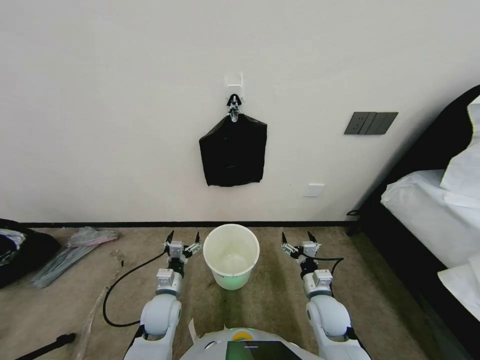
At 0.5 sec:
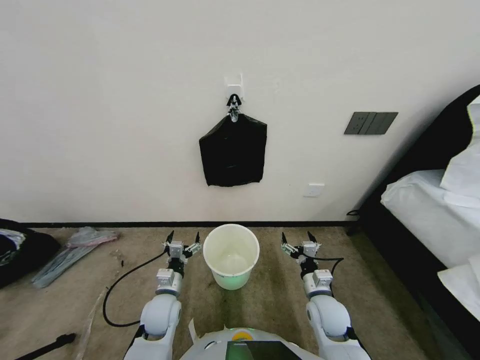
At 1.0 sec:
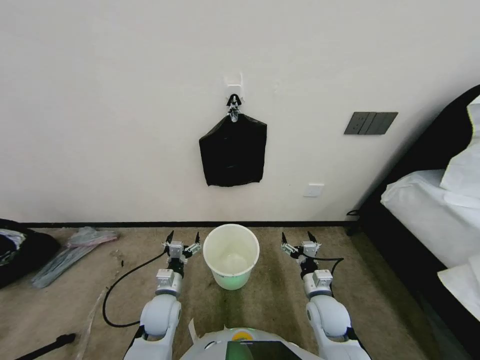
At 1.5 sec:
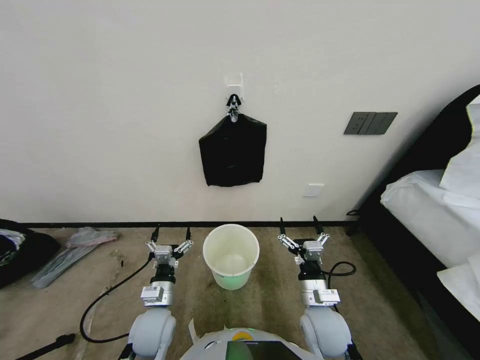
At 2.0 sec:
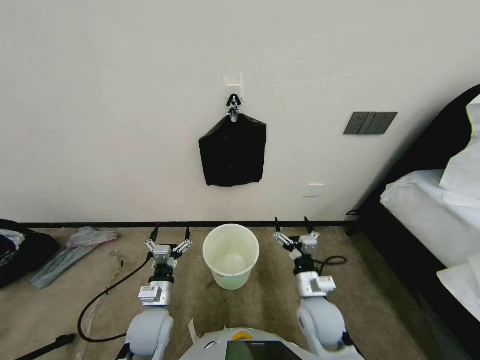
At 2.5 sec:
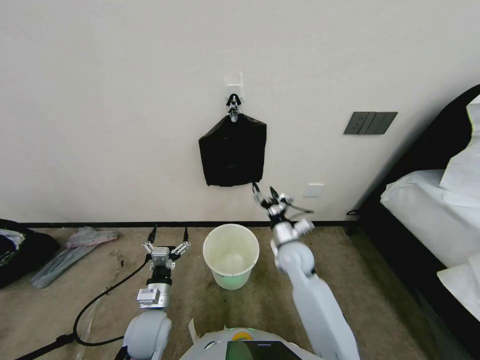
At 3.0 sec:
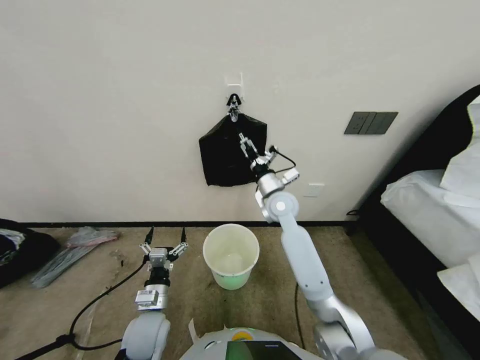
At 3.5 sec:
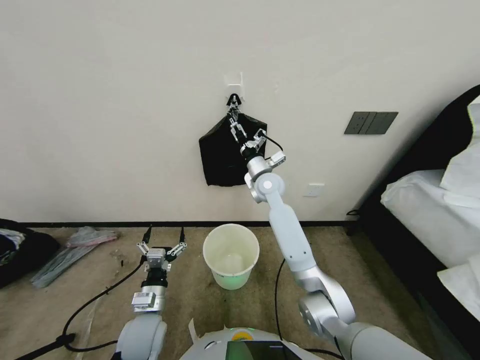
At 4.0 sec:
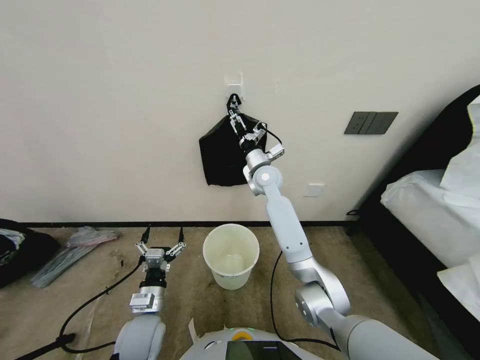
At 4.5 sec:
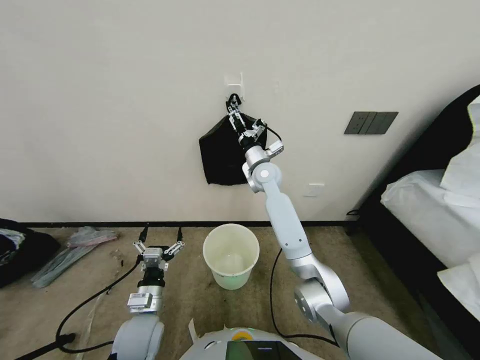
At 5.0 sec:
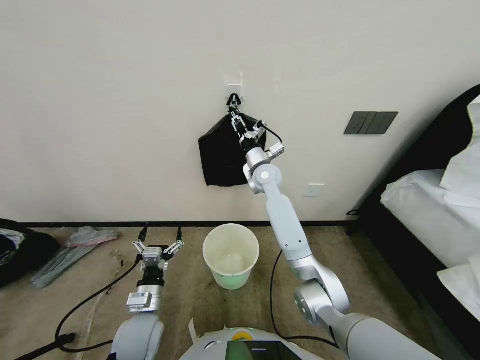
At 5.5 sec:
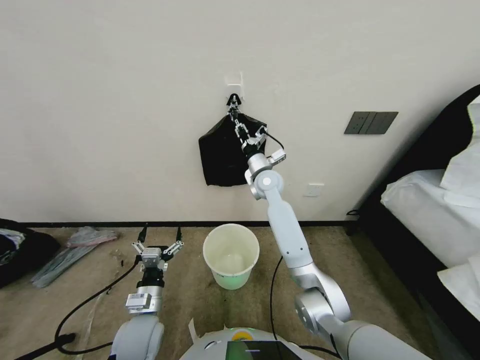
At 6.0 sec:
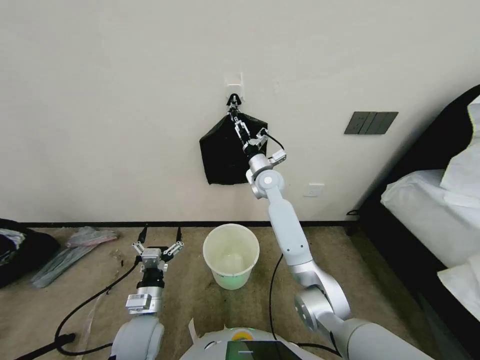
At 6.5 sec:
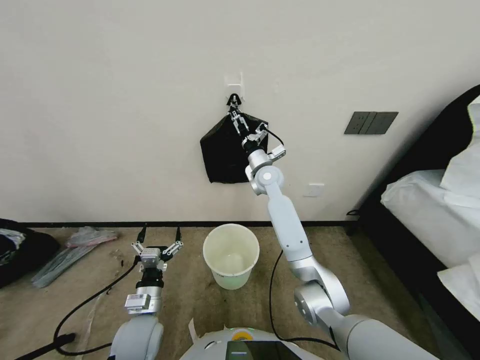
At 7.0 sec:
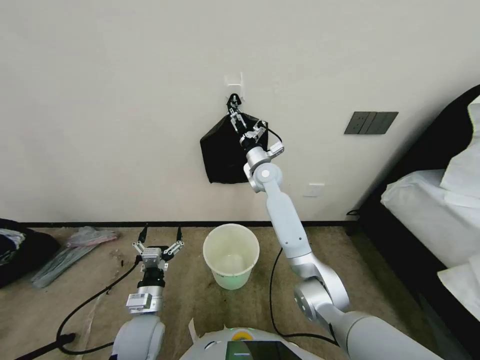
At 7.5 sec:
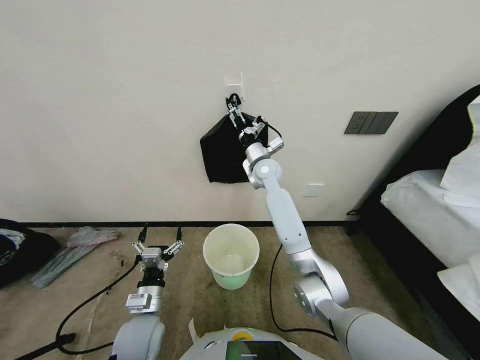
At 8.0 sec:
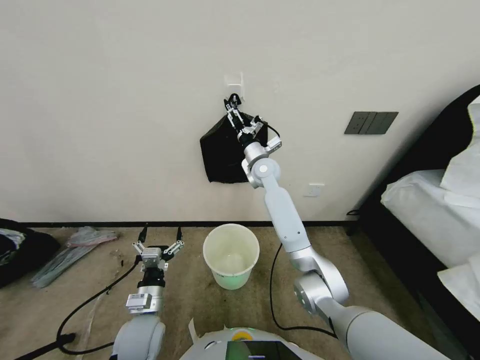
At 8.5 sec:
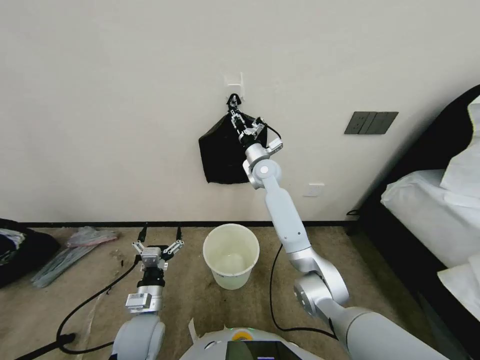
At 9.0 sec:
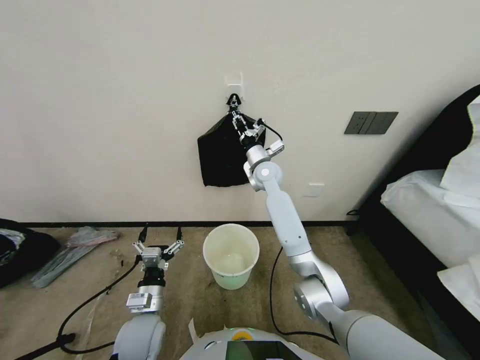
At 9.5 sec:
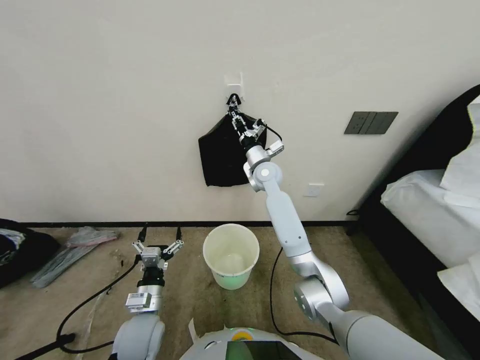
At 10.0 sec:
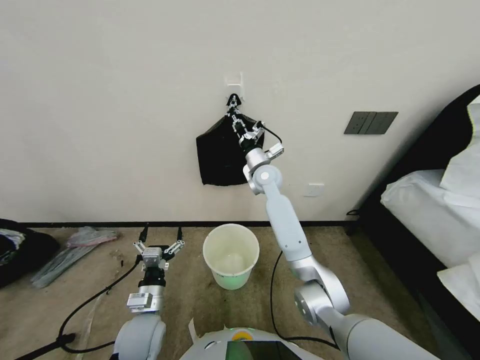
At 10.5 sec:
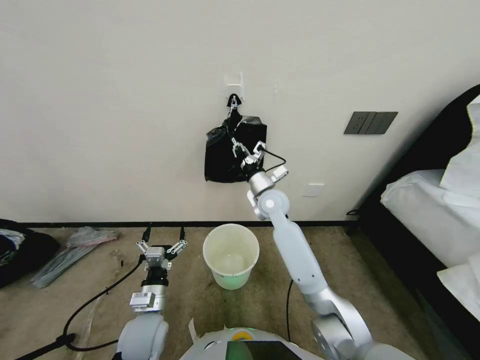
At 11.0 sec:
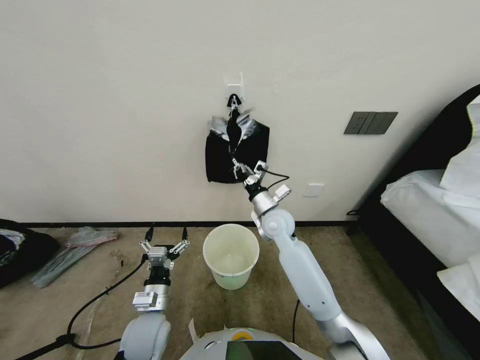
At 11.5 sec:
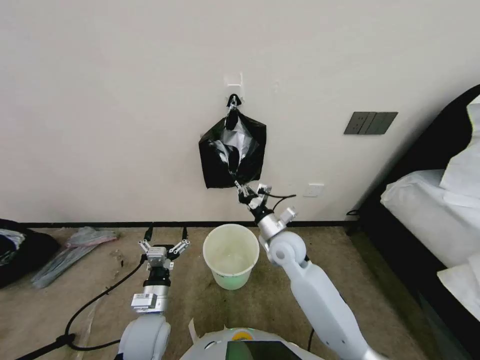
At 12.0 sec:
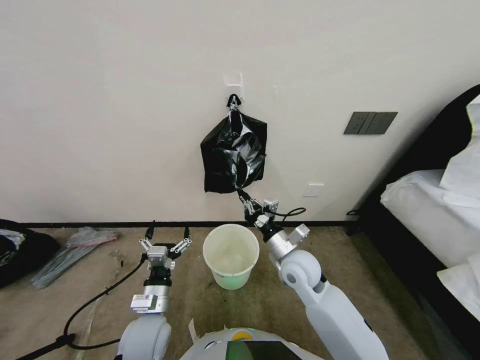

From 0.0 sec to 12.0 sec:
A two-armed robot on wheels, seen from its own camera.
Task of the whole recording: Place a trash bag onto the trash bin.
From 2.0 sec to 4.0 sec: The right gripper goes some 40 cm forward and upward.
From 4.0 sec to 6.0 sec: The right gripper closes, then reopens.
From 6.0 sec to 8.0 sec: The grippers make only small movements.
From 8.0 sec to 10.0 sec: The right gripper closes up.
From 10.0 sec to 12.0 sec: The right gripper moves backward and downward, roughly 25 cm.

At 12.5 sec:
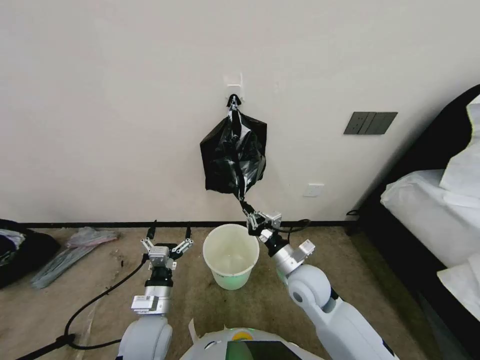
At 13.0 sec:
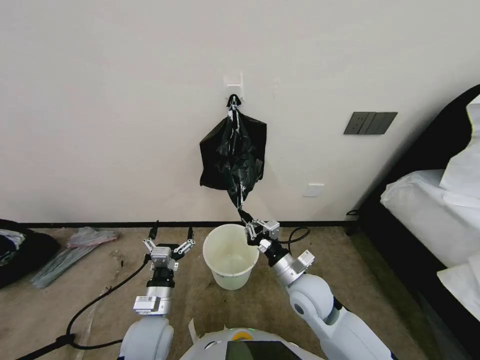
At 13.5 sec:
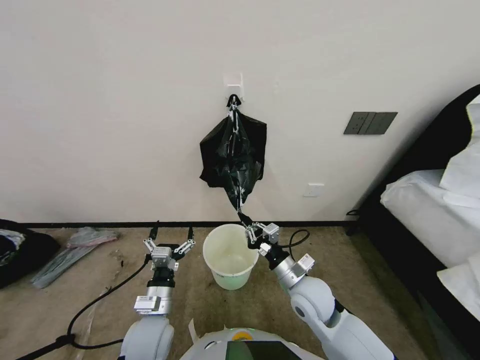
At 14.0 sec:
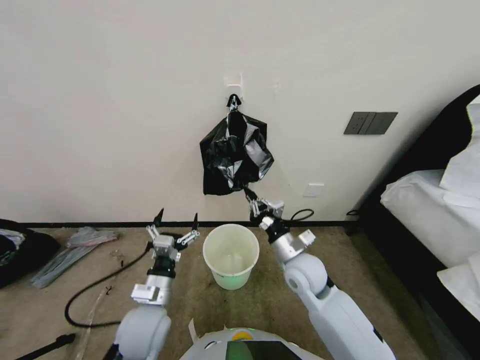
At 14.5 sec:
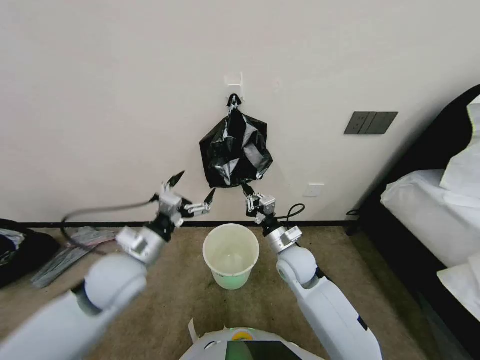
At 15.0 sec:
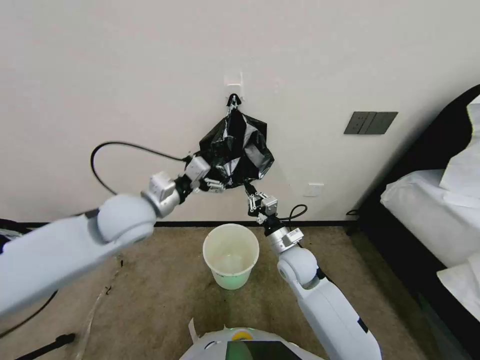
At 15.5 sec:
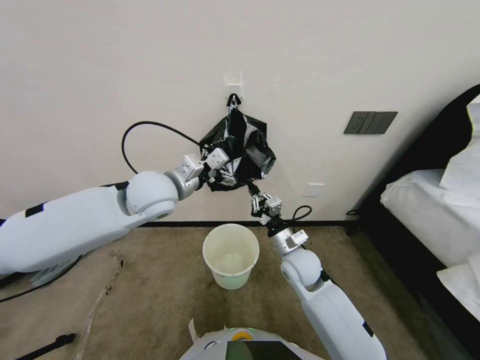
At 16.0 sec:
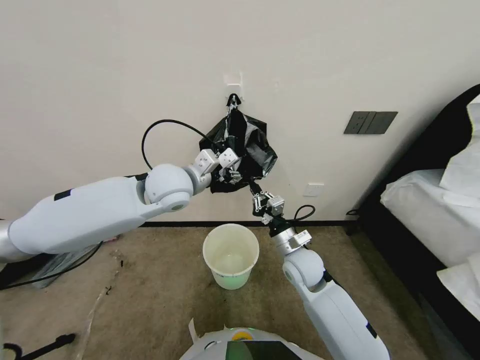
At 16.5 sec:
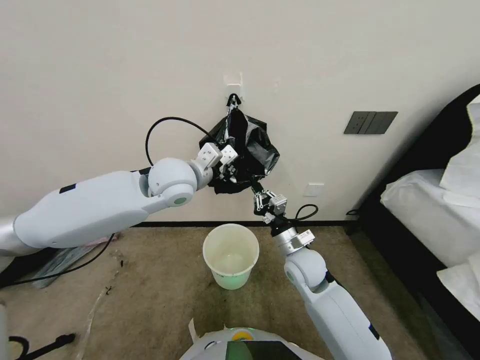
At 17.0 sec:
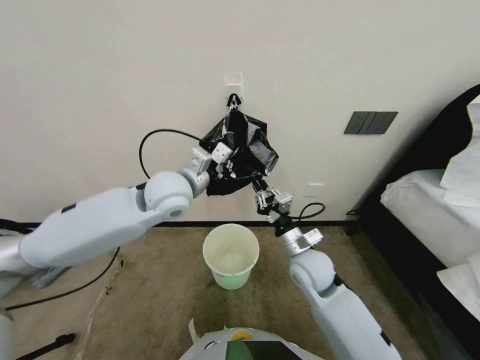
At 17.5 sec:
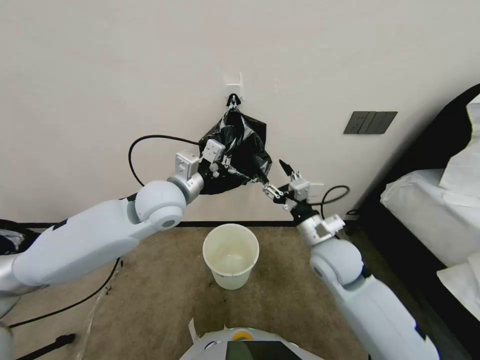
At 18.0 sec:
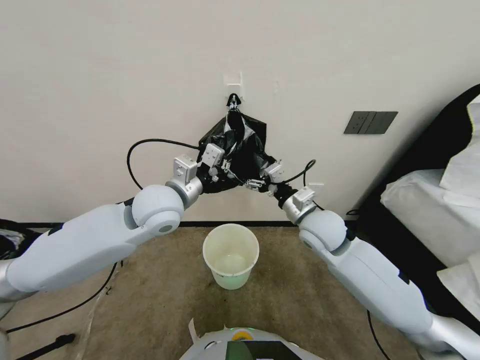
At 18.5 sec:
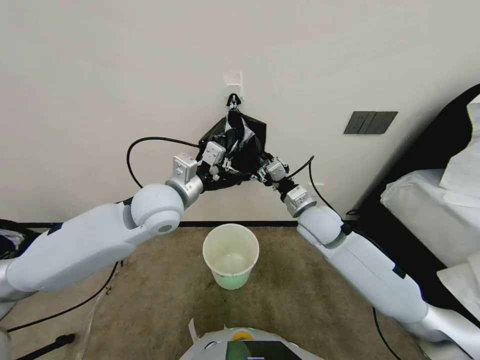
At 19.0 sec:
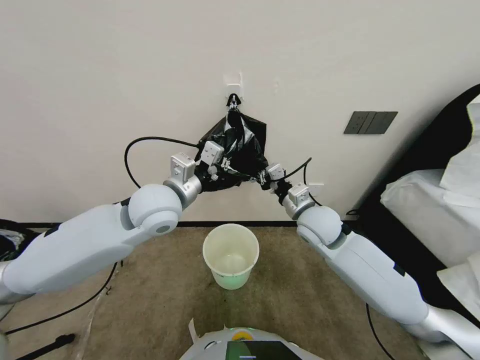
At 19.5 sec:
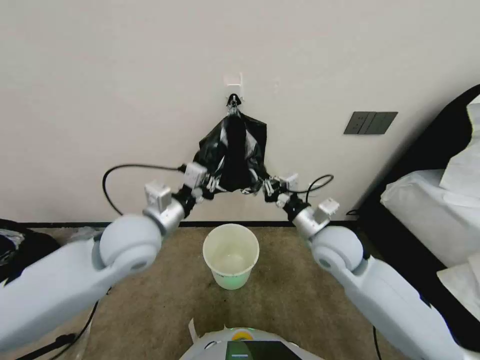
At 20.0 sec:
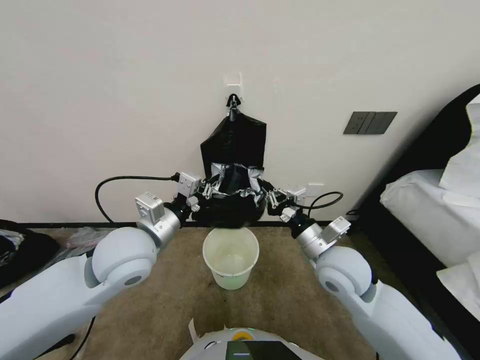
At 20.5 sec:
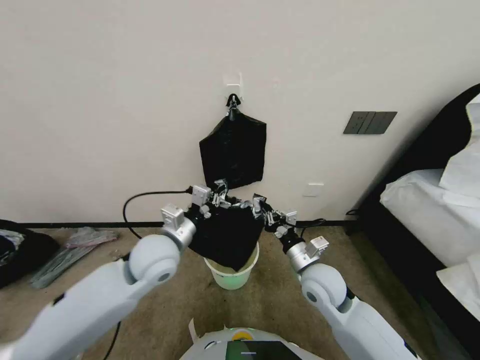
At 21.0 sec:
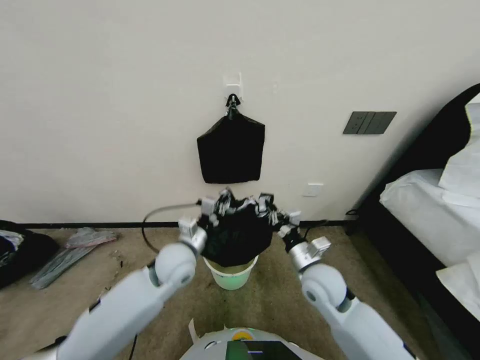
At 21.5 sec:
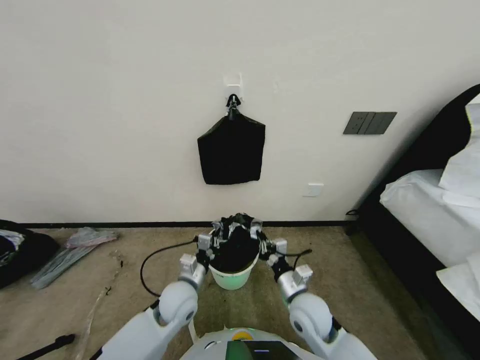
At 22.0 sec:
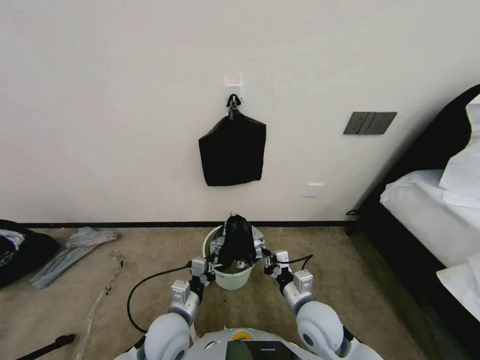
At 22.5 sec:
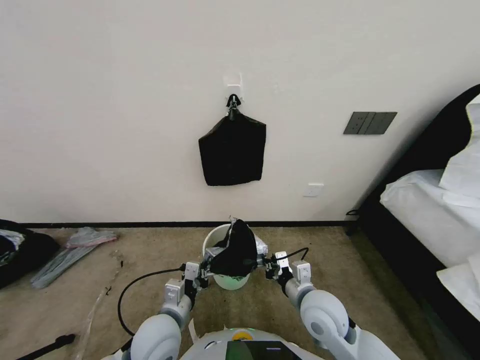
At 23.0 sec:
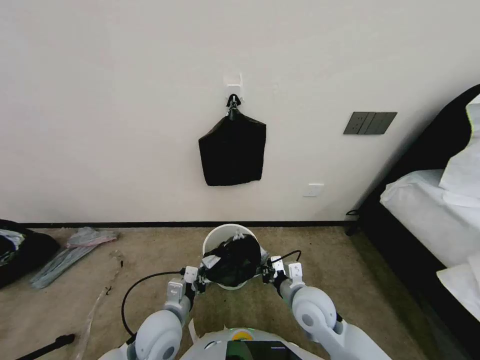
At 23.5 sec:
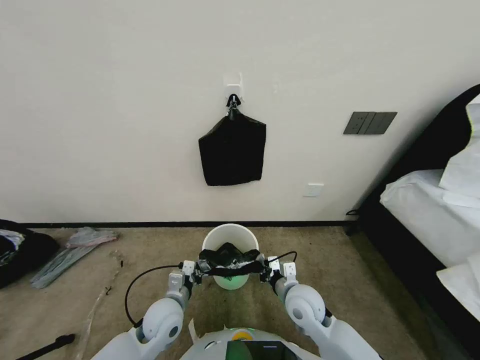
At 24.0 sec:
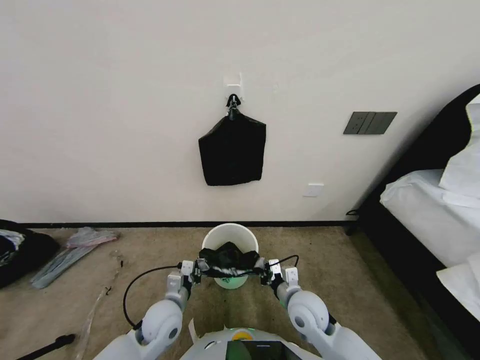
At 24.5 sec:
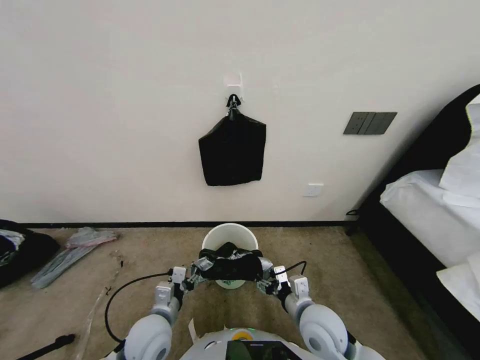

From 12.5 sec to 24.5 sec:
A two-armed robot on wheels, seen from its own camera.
Task of the whole recording: Place a trash bag onto the trash bin.
From 12.5 sec to 14.5 sec: The left gripper goes about 15 cm upward and forward.
From 14.5 sec to 16.5 sec: The left gripper is displaced forward, upward and to the right by approximately 25 cm, and closes up.
From 16.5 sec to 18.5 sec: The right gripper is displaced upward and forward by approximately 10 cm, and opens its fingers. Meanwhile the left gripper shifts by some 5 cm.
From 18.5 sec to 20.5 sec: The left gripper moves downward and backward, about 10 cm, while the right gripper travels backward and downward by some 15 cm, and closes up.
From 20.5 sec to 22.5 sec: The right gripper is displaced backward by some 5 cm. Meanwhile the left gripper goes roughly 20 cm downward and backward.
From 22.5 sec to 24.5 sec: The right gripper opens; the left gripper opens up.

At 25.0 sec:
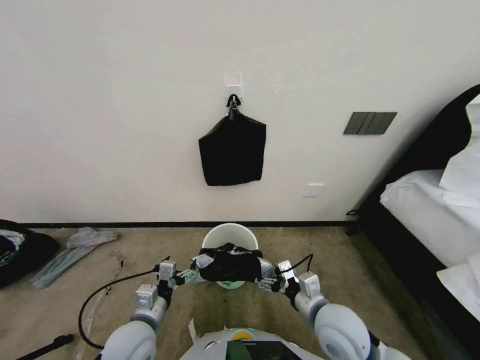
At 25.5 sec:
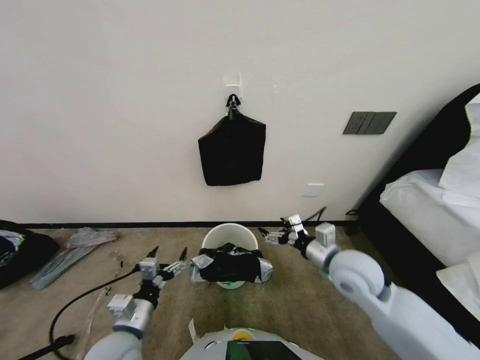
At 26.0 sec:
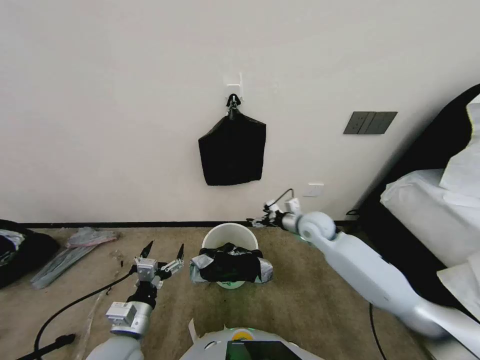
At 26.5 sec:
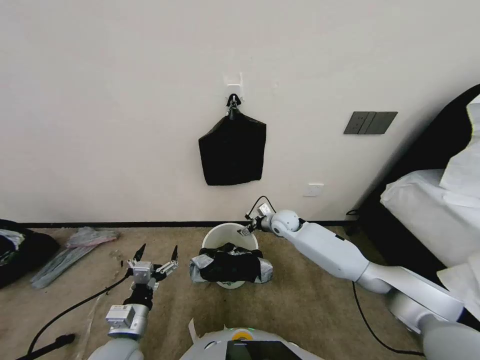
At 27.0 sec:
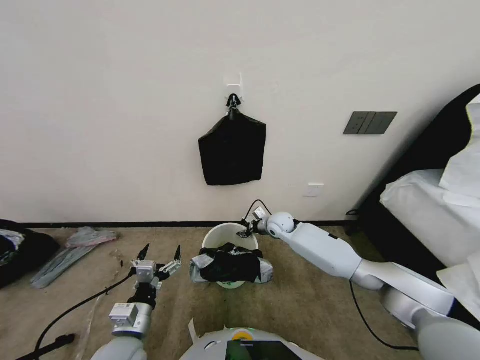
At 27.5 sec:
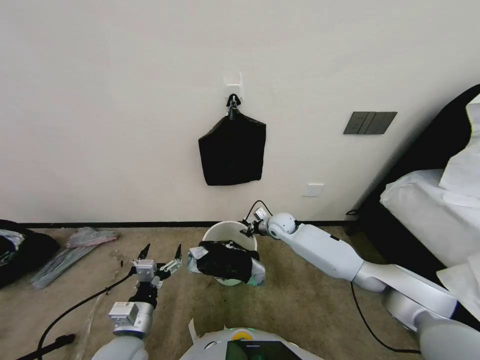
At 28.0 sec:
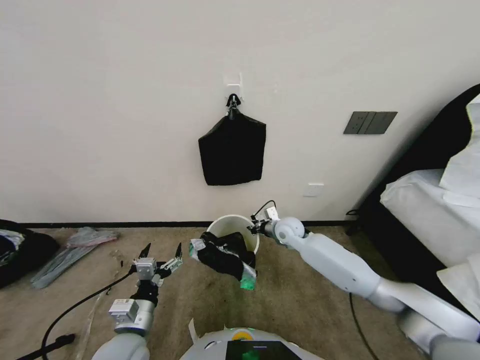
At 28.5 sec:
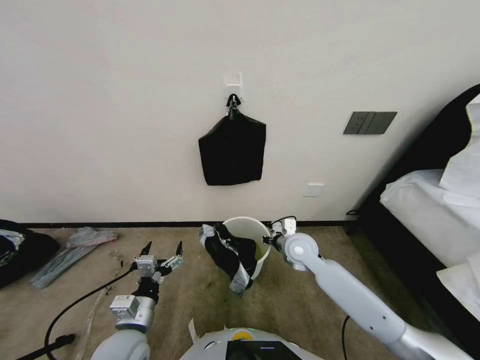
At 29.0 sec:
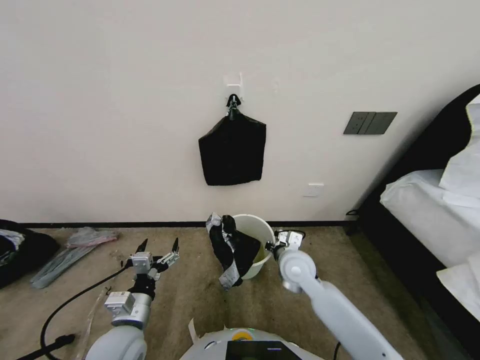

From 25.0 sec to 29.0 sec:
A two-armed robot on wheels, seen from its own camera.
Task of the whole recording: Place a trash bag onto the trash bin.
From 25.0 sec to 27.0 sec: The right gripper travels forward by about 30 cm.
From 27.0 sec to 29.0 sec: The right gripper travels backward by about 15 cm, and closes.
